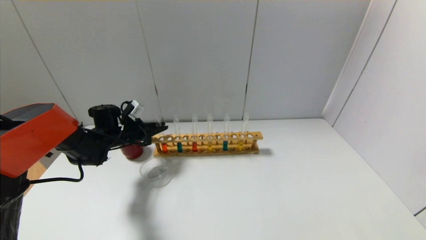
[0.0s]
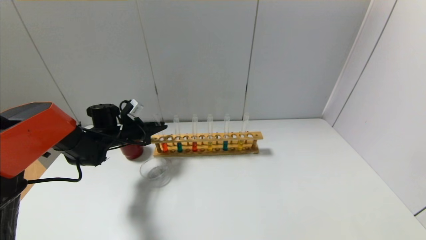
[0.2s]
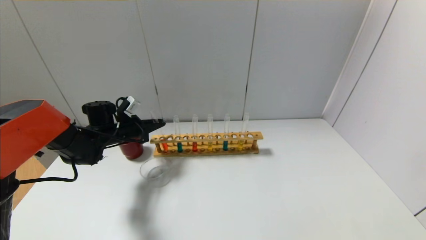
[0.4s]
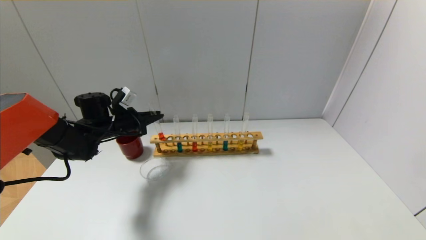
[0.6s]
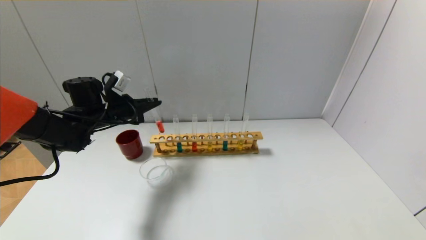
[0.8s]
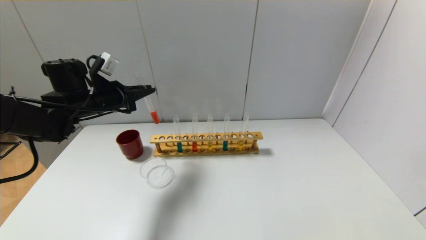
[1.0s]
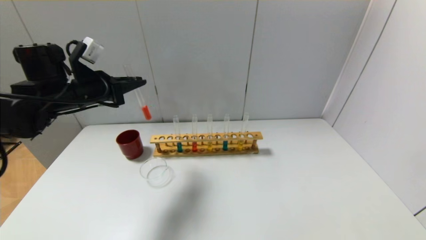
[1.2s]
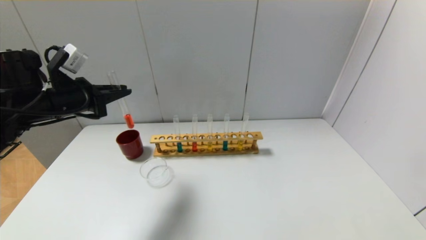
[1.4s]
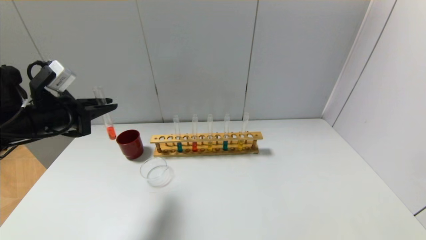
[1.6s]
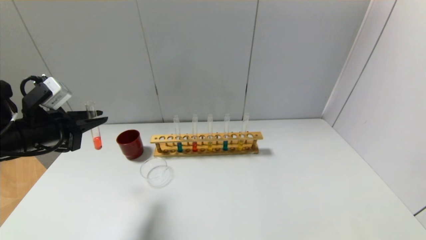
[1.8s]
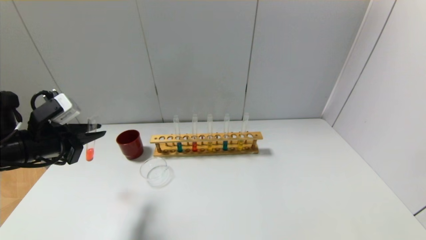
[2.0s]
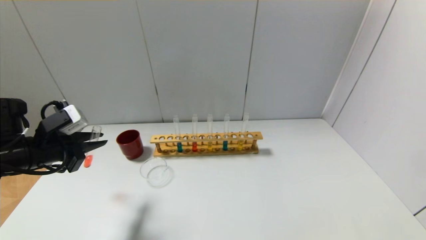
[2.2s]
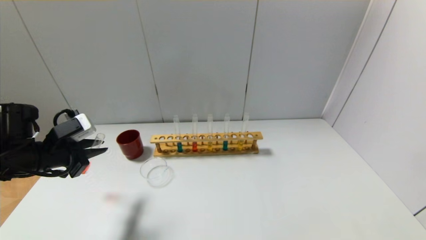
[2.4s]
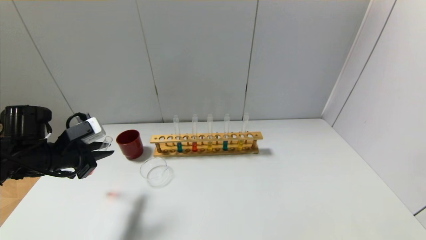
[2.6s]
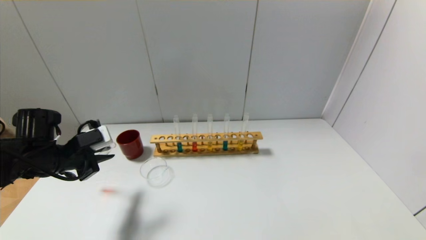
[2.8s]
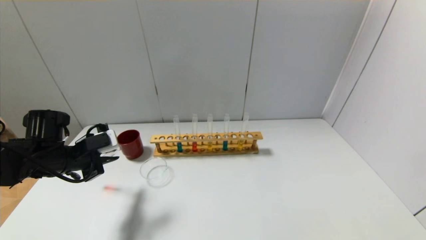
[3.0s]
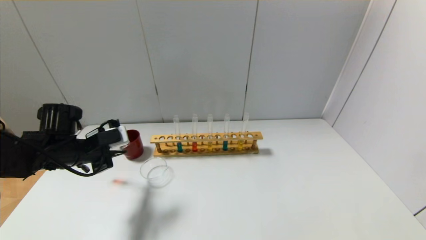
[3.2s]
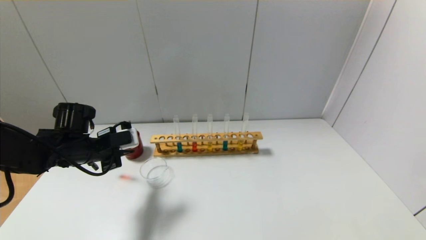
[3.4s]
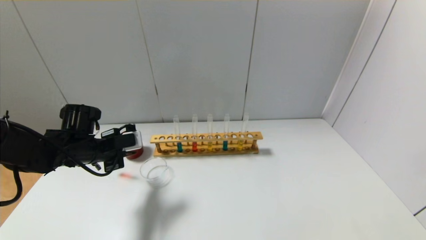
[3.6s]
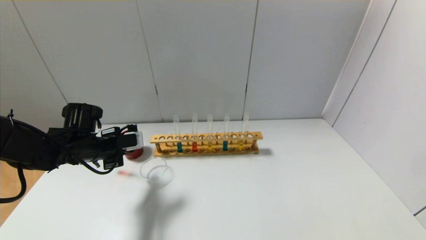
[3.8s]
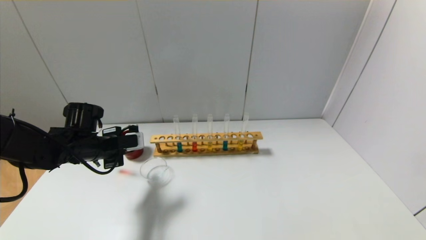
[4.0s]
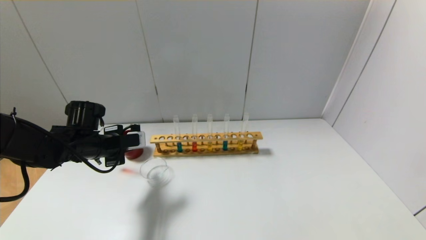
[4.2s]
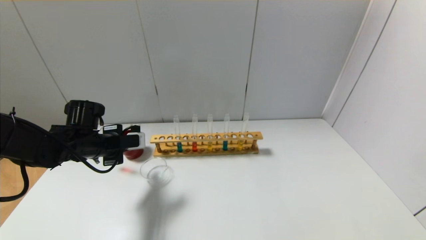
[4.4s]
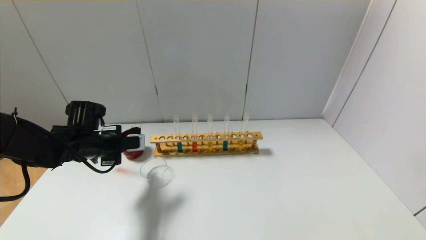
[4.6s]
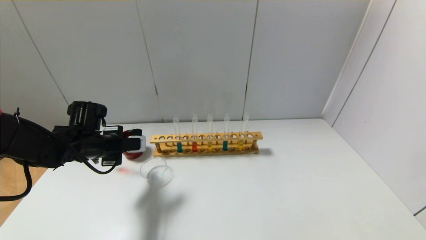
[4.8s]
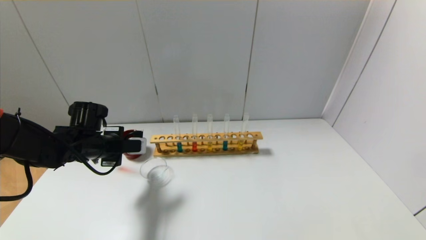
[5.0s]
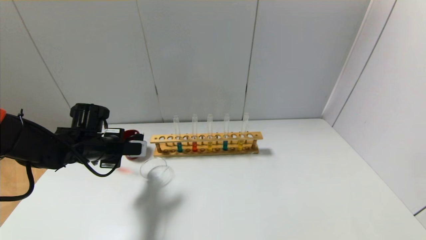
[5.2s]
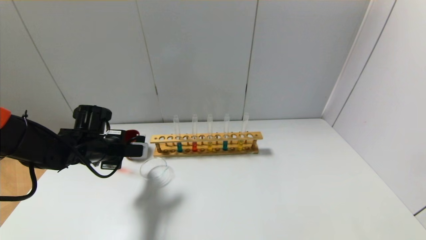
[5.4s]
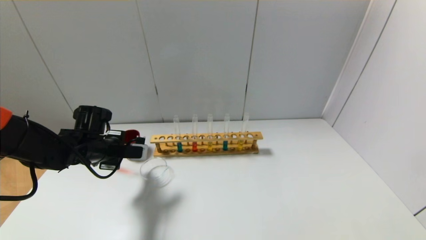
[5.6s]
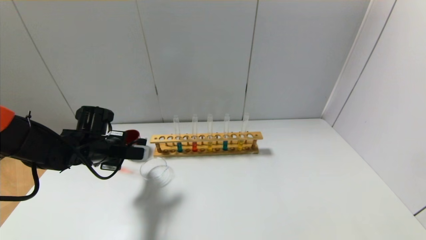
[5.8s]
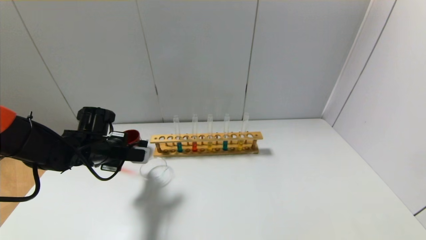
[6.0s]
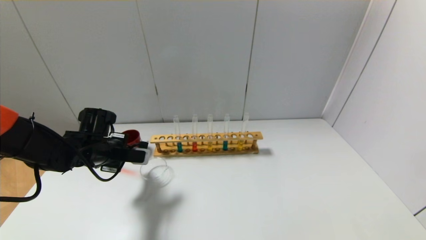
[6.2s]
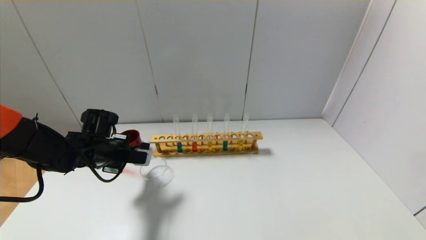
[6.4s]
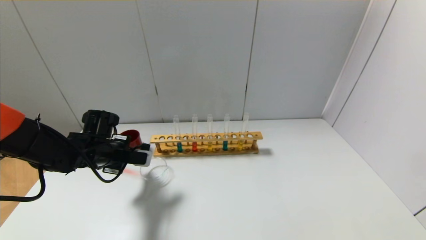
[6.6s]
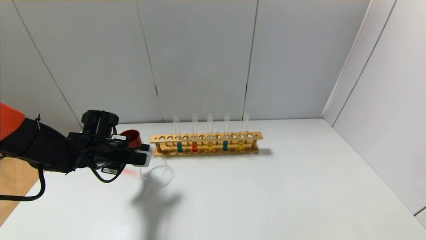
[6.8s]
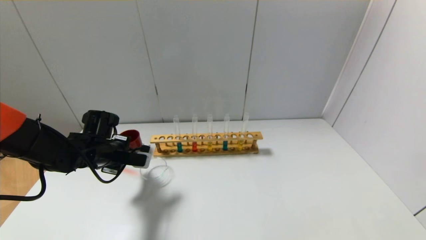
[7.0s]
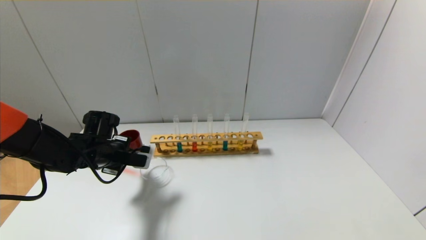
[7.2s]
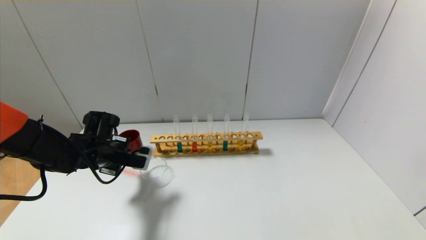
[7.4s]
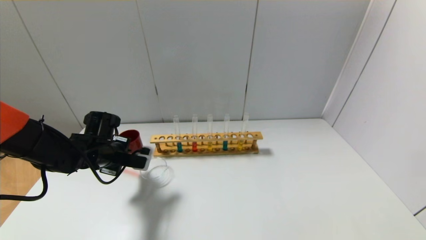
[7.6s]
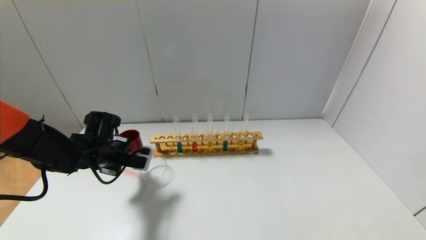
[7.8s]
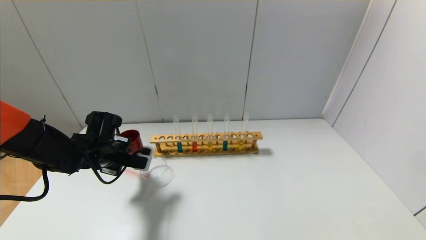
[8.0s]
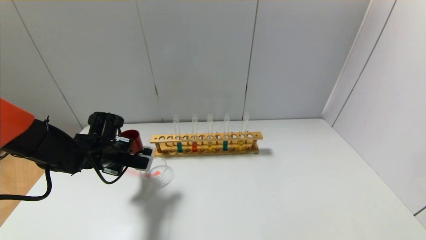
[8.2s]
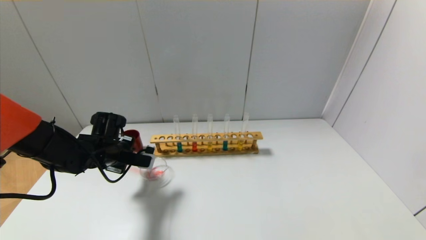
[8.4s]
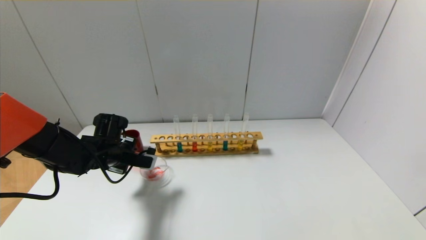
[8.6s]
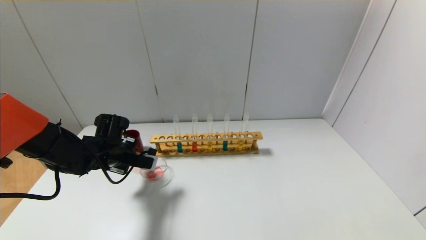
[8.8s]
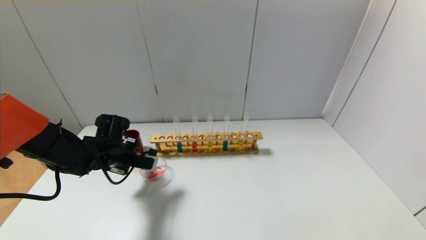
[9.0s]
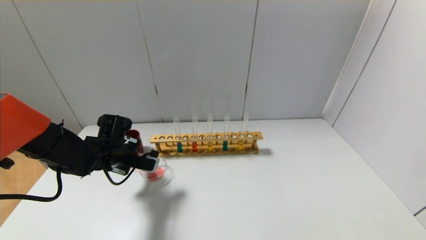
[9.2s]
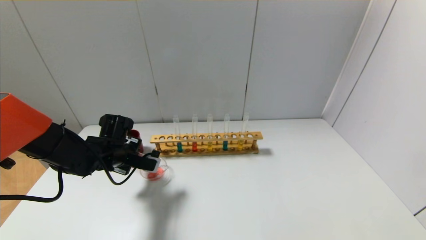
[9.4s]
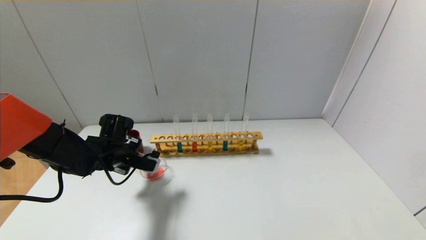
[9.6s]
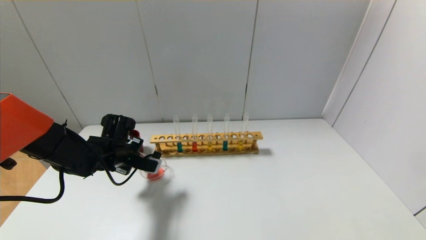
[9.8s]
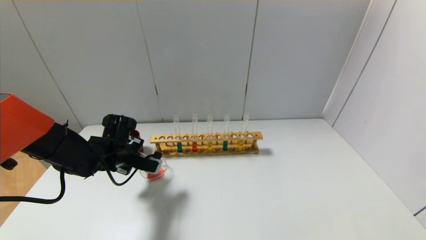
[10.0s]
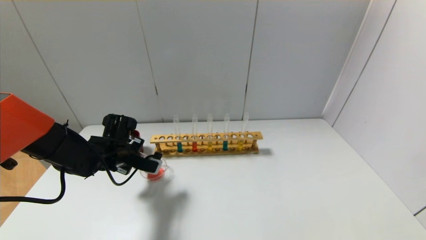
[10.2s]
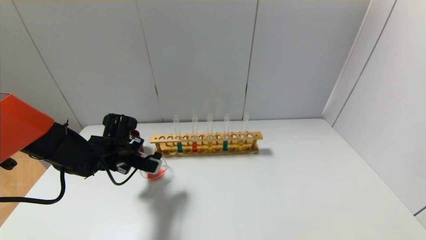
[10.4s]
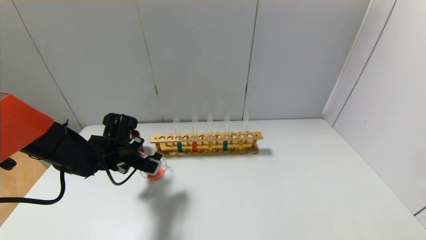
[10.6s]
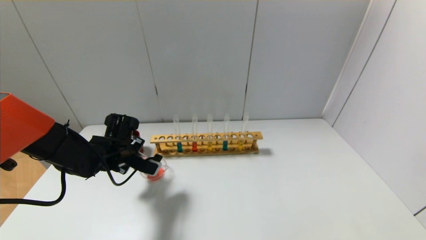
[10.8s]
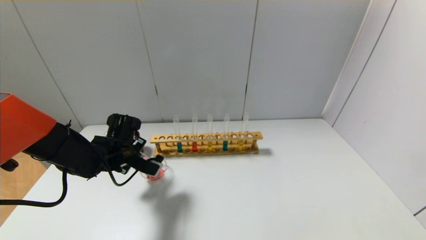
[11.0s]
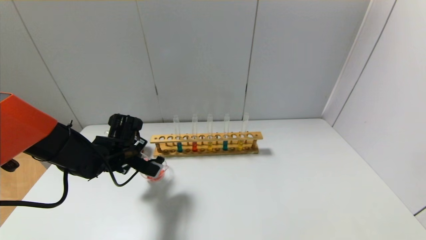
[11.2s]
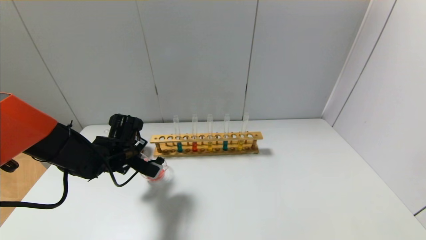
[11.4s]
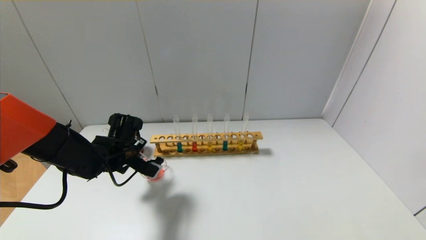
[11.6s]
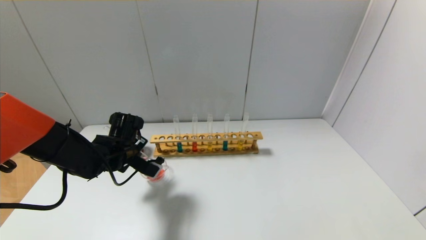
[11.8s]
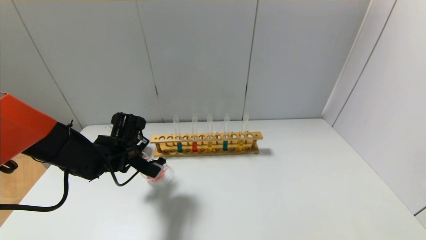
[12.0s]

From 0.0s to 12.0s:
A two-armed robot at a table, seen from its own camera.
From 0.0s to 1.6s: The left gripper moves backward and upward, some 20 cm.
From 1.6s to 3.0s: The left gripper moves downward, about 10 cm.
From 3.0s to 4.4s: The left gripper moves roughly 5 cm.
From 4.4s to 6.0s: The grippers move only a little.
From 6.0s to 10.4s: There are only small adjustments of the grippers.
From 10.4s to 12.0s: There are only small adjustments of the grippers.

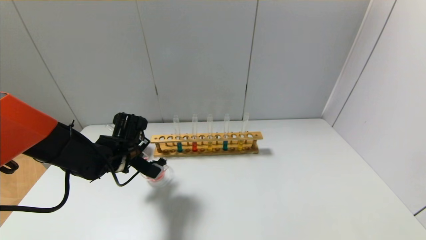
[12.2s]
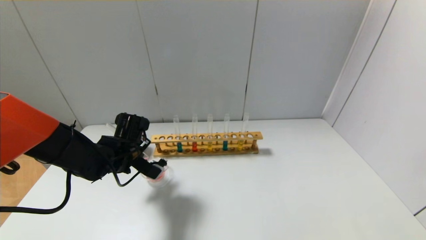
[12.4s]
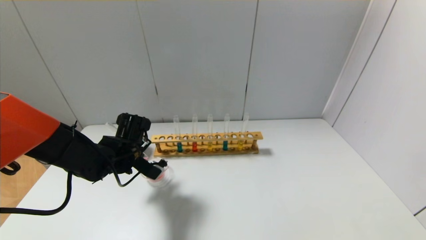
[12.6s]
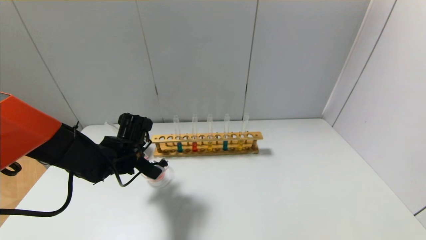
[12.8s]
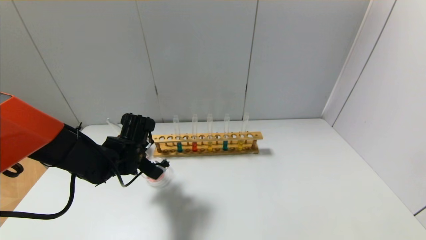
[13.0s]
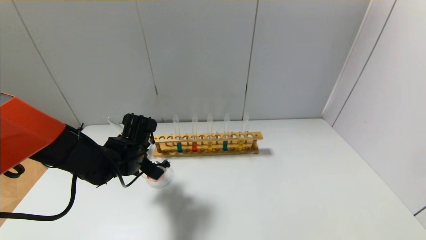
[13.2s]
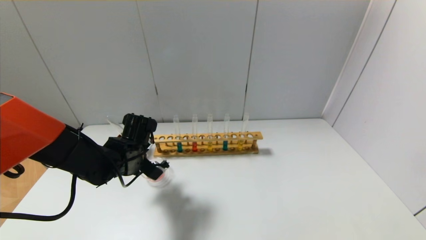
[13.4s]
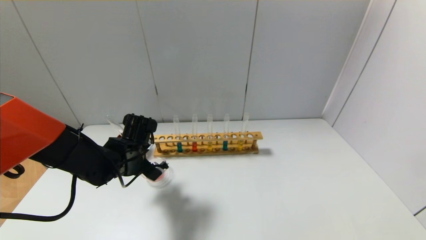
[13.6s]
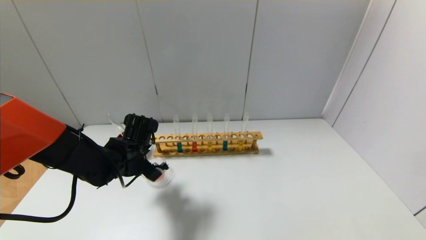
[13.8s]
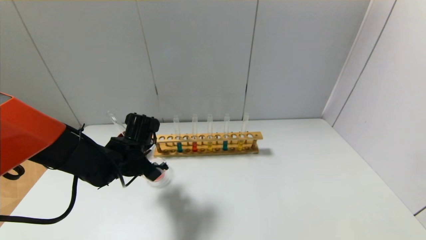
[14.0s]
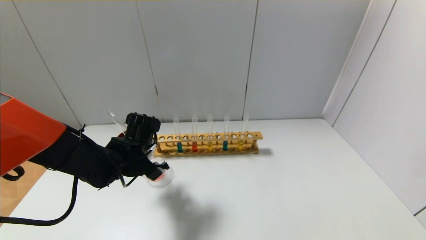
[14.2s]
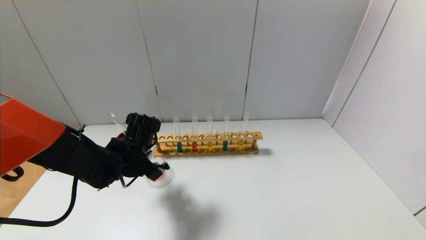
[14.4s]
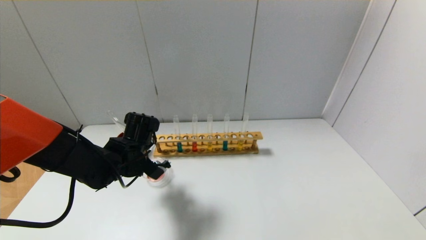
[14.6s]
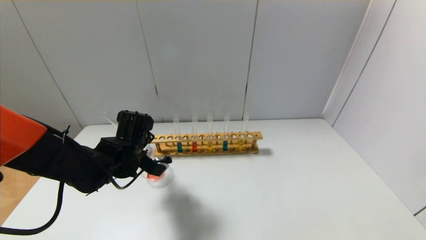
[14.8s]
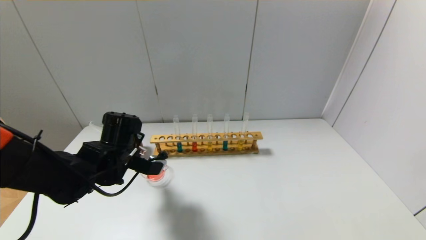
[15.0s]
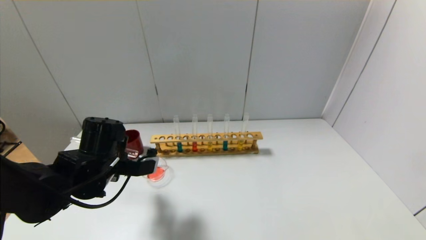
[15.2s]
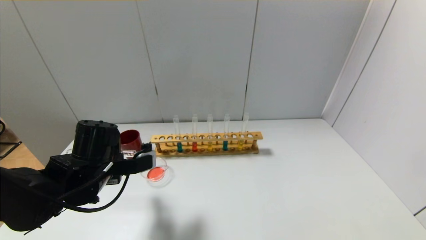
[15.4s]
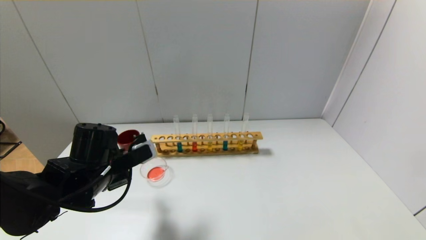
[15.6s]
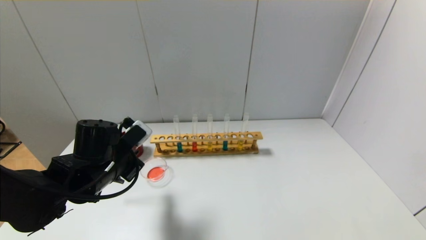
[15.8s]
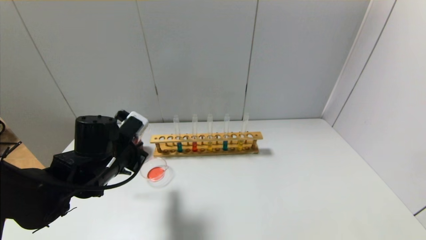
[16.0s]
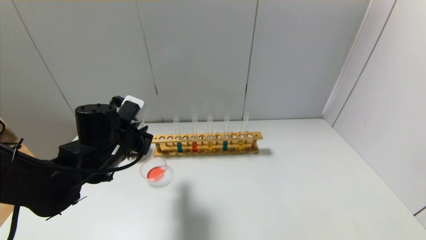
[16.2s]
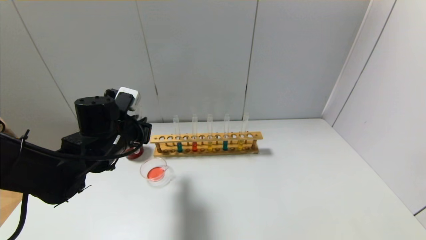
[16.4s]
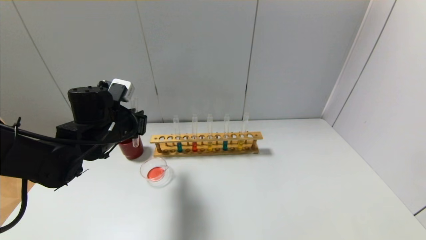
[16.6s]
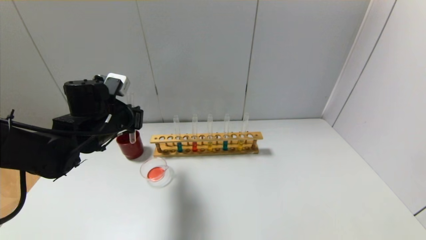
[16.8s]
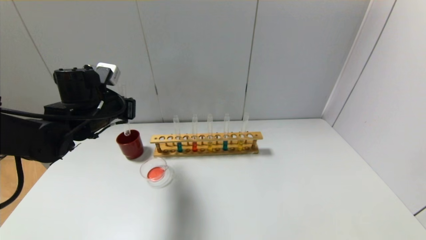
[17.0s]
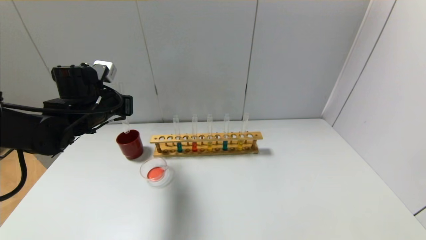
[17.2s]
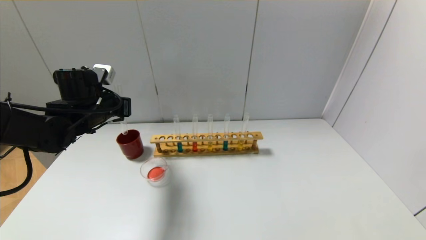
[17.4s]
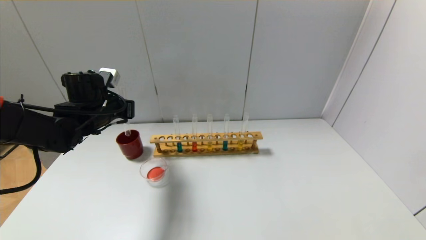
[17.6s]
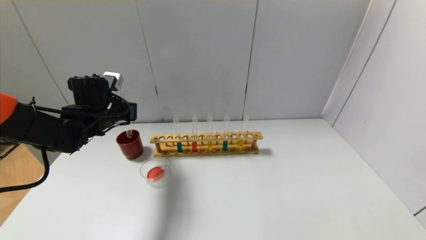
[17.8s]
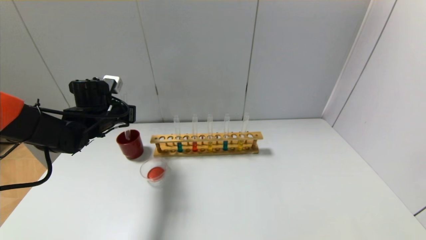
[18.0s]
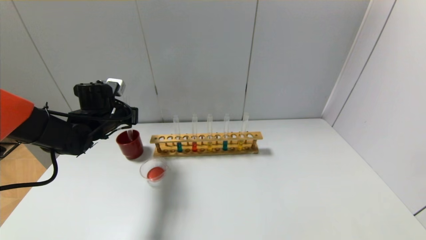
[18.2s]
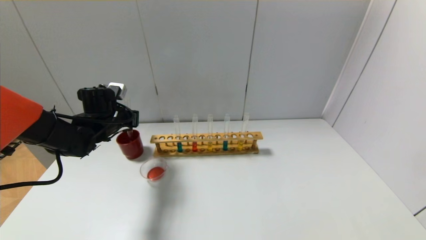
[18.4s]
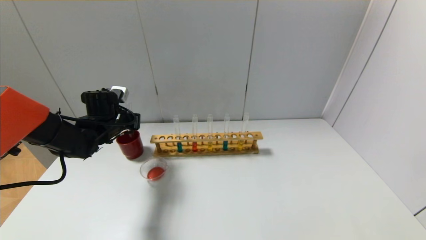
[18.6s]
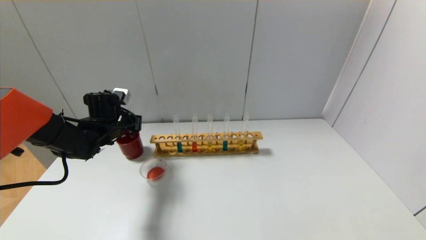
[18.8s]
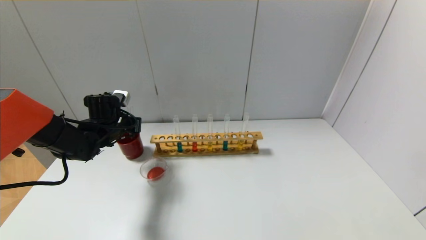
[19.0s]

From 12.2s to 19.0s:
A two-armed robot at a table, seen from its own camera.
Step, from 12.2s to 14.4s: Pour the red reagent into the graduated cylinder with the left gripper.
From 12.2s to 13.6s: The grippers move only a little.
From 16.2s to 17.6s: The left gripper moves forward and to the left, roughly 10 cm.
From 17.6s to 19.0s: The left gripper is displaced downward by some 5 cm.
